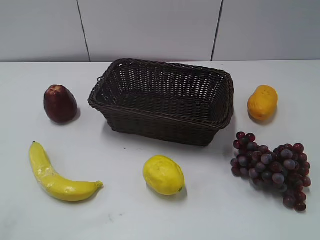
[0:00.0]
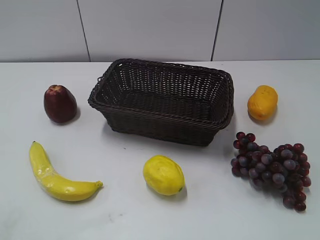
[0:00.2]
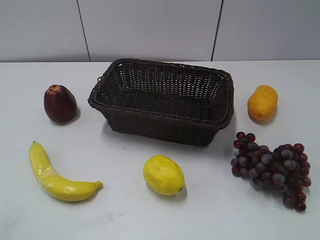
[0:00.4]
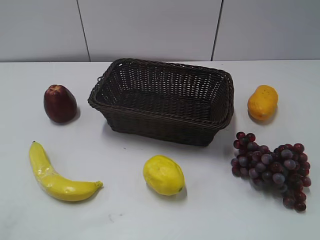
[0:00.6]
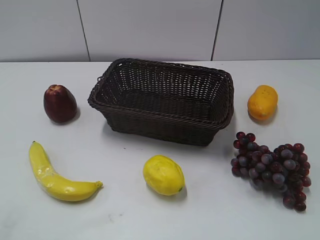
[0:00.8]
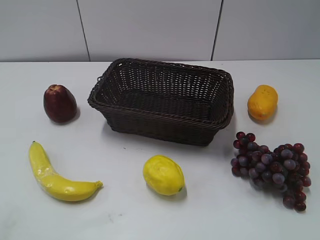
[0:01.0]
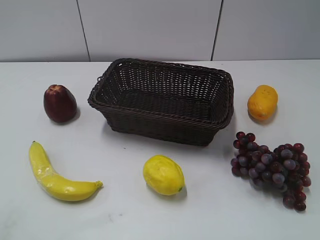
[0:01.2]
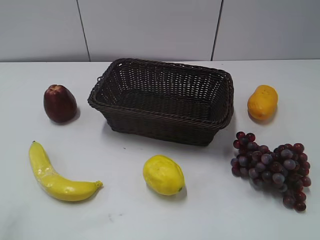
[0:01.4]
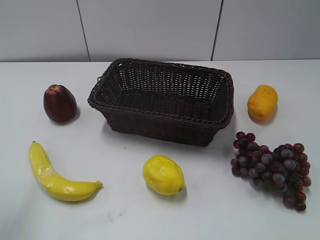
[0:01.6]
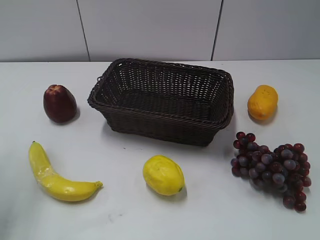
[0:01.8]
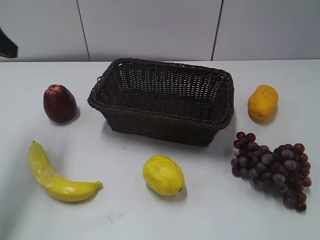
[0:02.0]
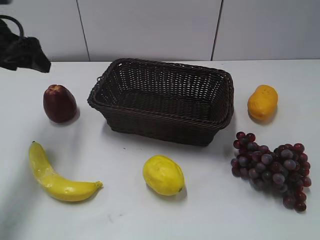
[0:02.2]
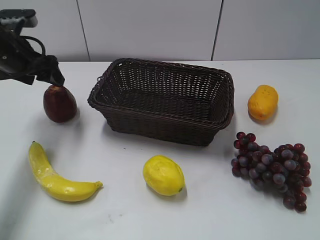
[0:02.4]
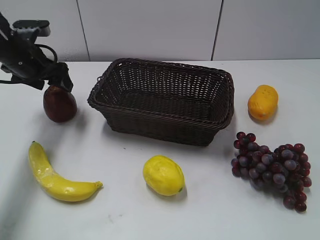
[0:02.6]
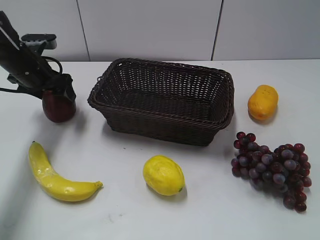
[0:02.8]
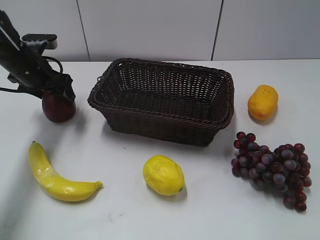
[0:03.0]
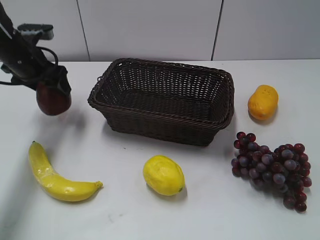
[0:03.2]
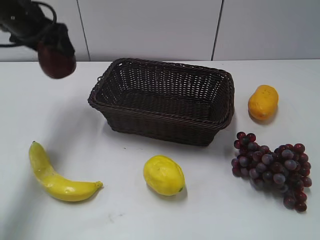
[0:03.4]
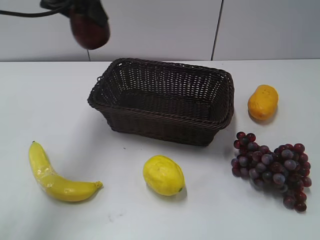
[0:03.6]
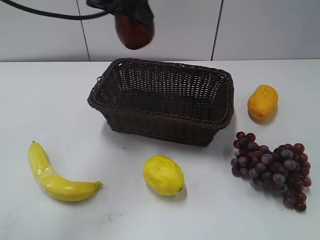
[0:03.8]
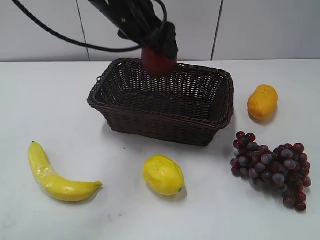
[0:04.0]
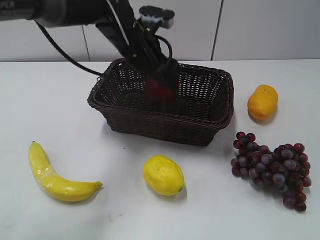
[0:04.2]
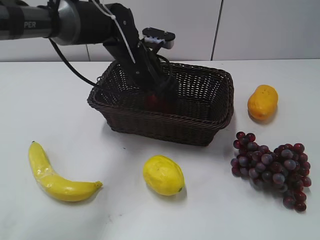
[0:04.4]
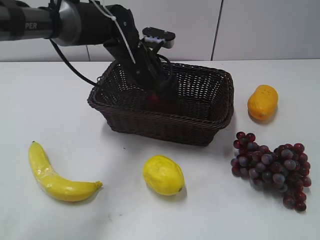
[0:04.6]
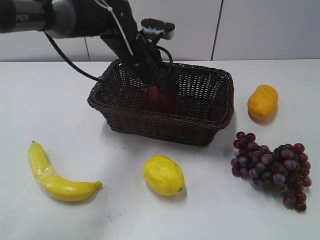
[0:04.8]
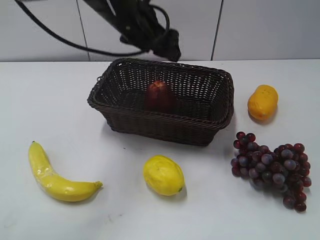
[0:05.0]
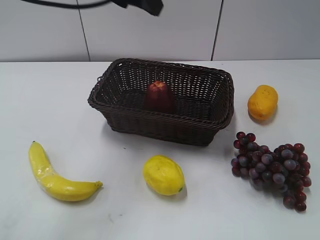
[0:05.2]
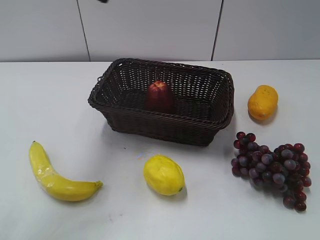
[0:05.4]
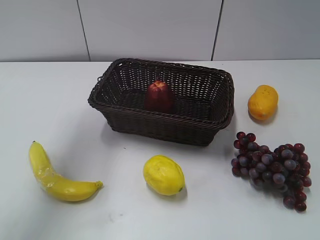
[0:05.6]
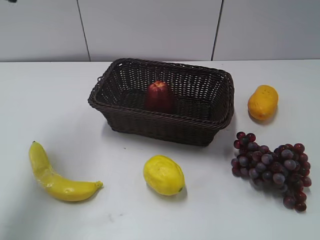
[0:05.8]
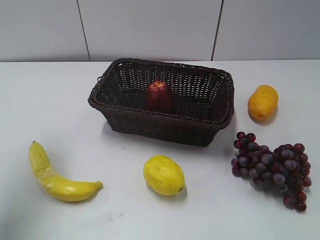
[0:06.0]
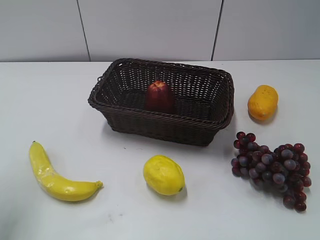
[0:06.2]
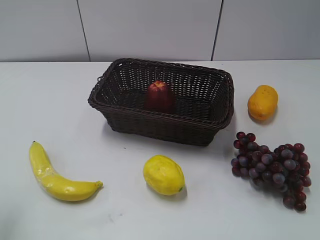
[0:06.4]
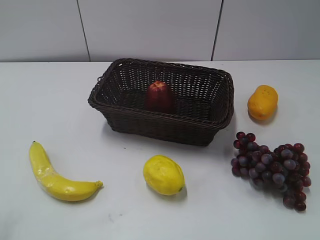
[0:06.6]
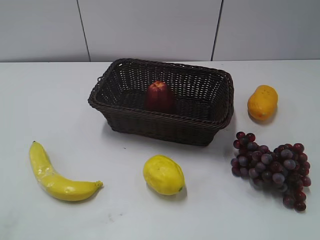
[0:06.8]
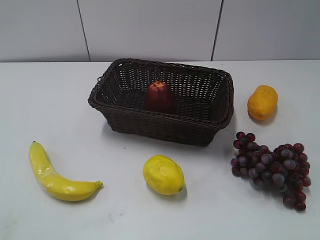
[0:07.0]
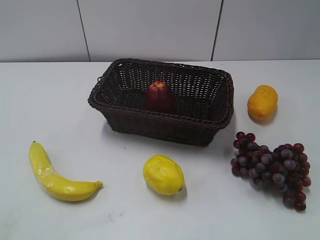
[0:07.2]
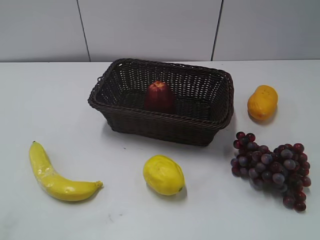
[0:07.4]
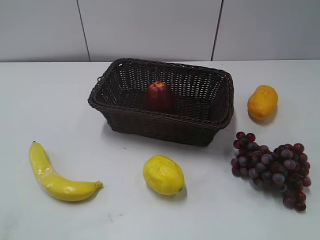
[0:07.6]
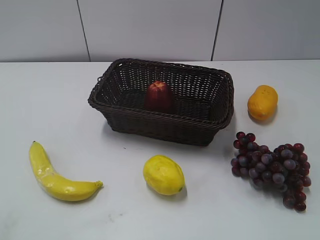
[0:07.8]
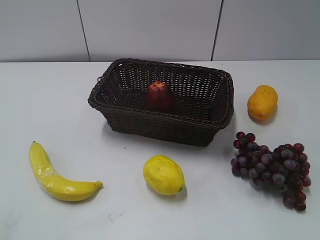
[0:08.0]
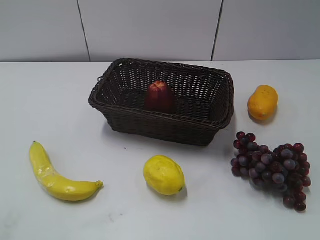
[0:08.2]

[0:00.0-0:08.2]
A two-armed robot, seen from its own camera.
Step, 0:02.0 to 0:02.8: Grasp the apple with left gripper.
Step, 0:03.0 to 0:04.6: Place the apple in the basket with left gripper.
0:01.6 to 0:03.2: The left gripper goes about 30 cm forward and downward, and closes up.
0:03.2 to 0:05.0: The left gripper moves to the right, approximately 20 cm, and opens its fingers.
0:05.0 to 0:06.6: The left gripper shifts approximately 40 cm backward and to the left, and closes up.

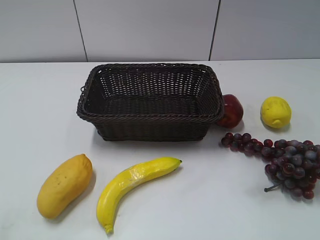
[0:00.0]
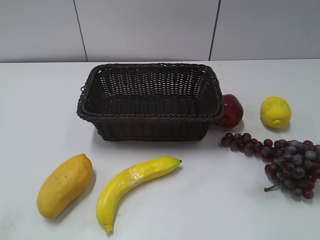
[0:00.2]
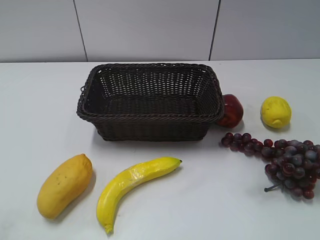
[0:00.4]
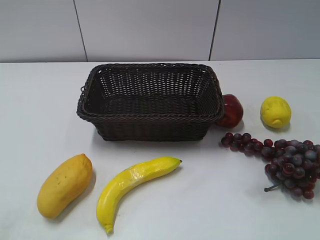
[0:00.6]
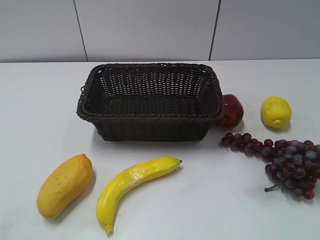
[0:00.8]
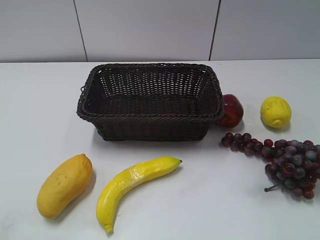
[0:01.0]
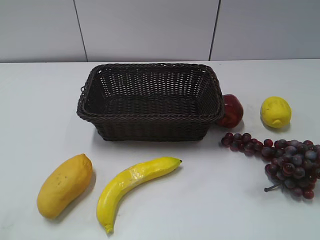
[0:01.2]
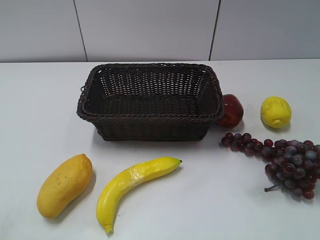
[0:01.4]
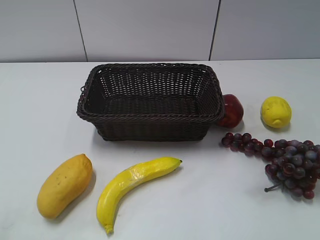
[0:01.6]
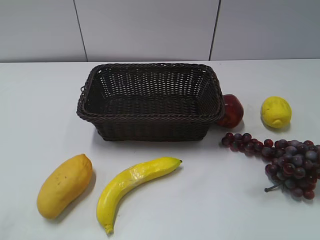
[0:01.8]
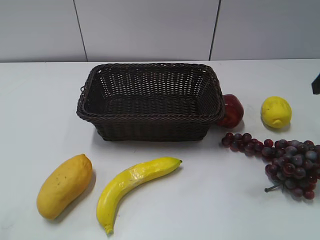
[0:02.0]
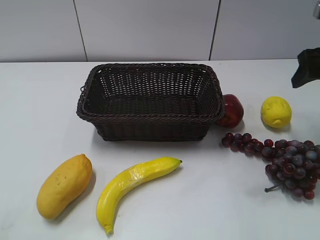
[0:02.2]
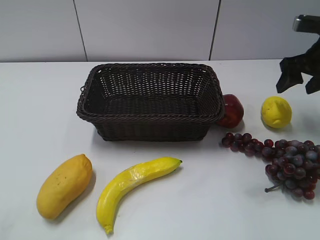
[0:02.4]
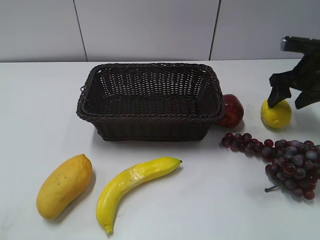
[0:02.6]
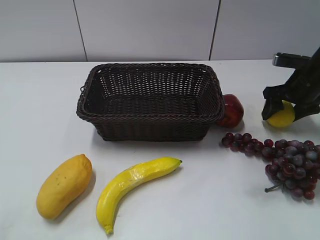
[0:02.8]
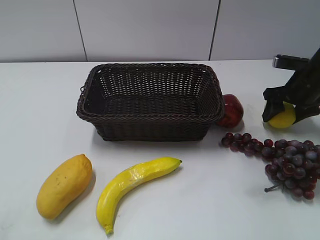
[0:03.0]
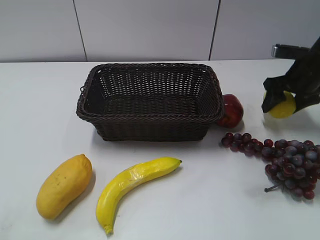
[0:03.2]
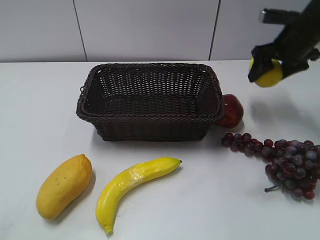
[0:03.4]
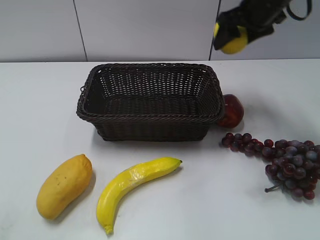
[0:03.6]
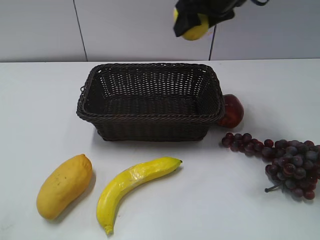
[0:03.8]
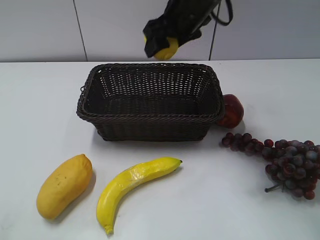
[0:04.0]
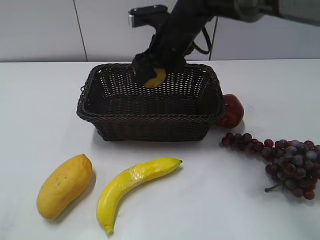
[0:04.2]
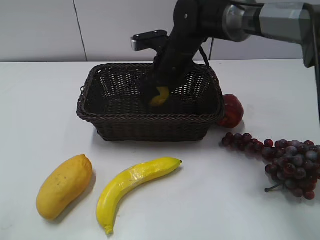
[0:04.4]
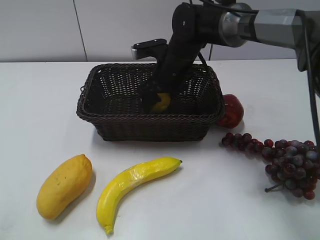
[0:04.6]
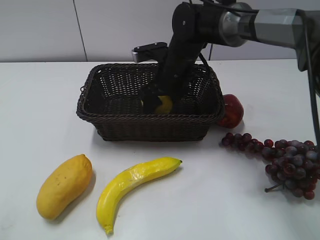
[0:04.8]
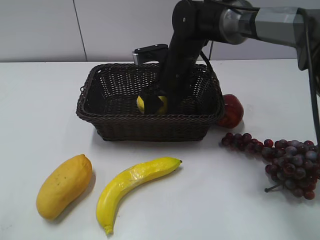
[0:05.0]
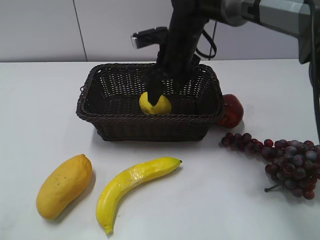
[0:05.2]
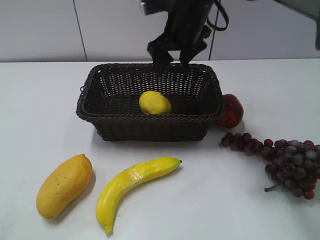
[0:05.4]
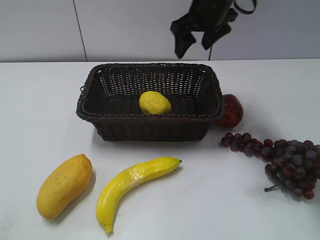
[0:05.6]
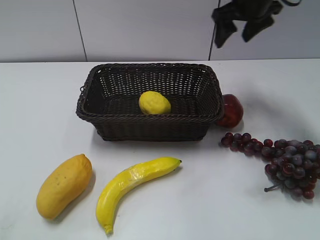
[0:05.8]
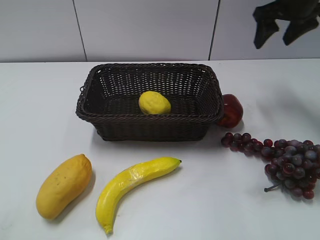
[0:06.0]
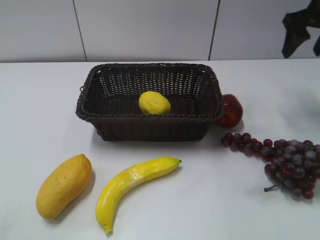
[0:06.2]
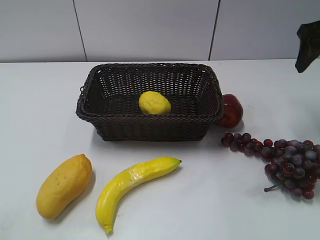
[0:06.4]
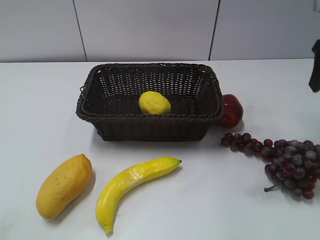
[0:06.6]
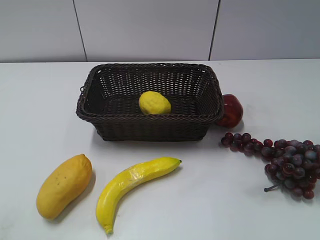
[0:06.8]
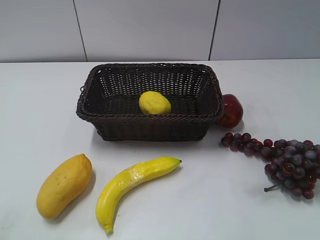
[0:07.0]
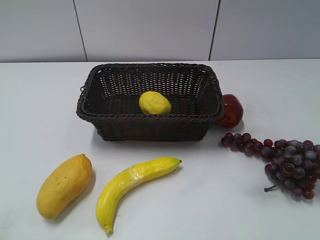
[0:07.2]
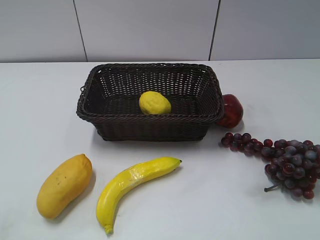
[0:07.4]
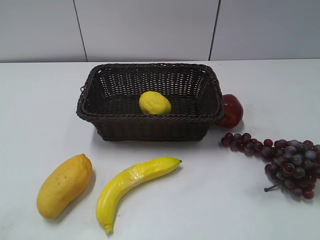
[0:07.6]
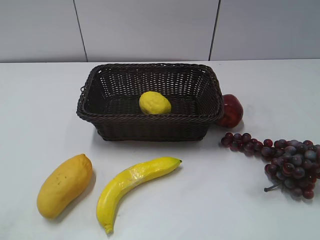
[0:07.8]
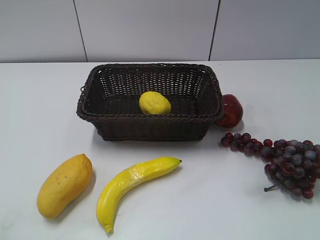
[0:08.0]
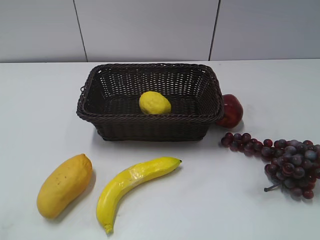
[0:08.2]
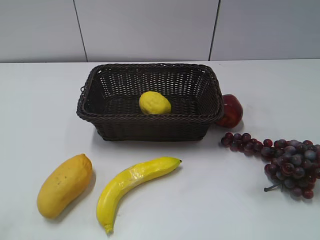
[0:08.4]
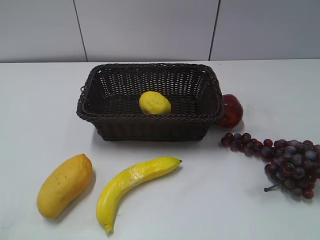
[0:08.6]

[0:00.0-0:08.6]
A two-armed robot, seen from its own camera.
Step, 0:02.0 to 0:03.2: Grasp the lemon with right gripper.
Step, 0:03.4 to 0:05.2: Place the lemon in the basket with right gripper.
0:01.4 to 0:02.8: The right gripper moves forward and downward, approximately 35 cm.
0:02.8 to 0:04.4: The right gripper goes approximately 25 cm to the left.
0:04.4 to 0:05.8: The right gripper goes about 20 cm to the right and upward, and opens up.
0:05.8 to 0:07.2: The right gripper shifts roughly 30 cm backward and to the right.
